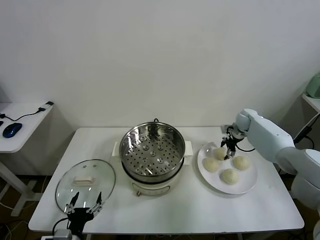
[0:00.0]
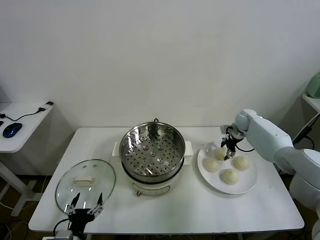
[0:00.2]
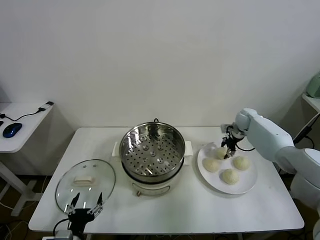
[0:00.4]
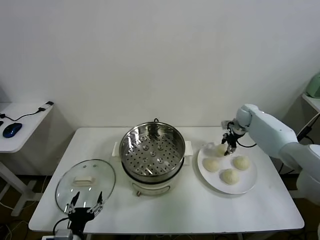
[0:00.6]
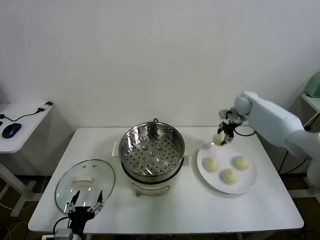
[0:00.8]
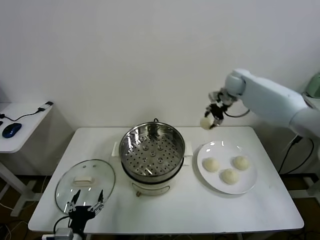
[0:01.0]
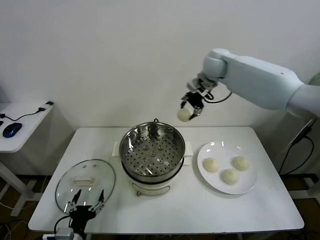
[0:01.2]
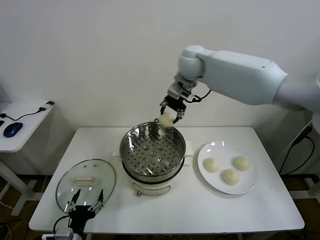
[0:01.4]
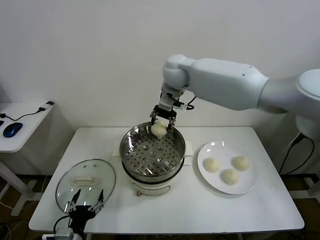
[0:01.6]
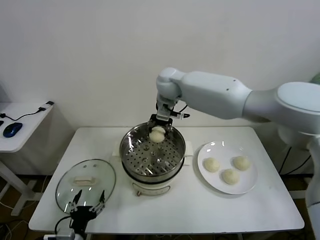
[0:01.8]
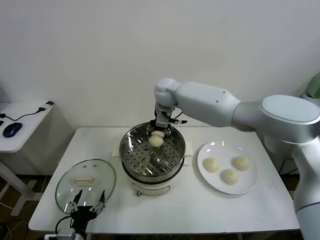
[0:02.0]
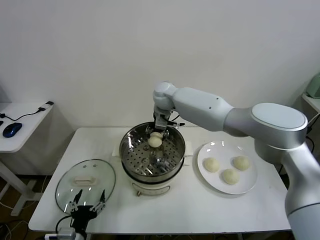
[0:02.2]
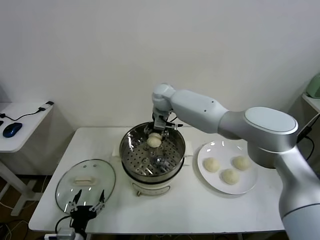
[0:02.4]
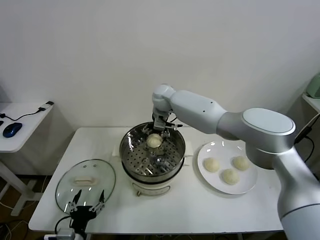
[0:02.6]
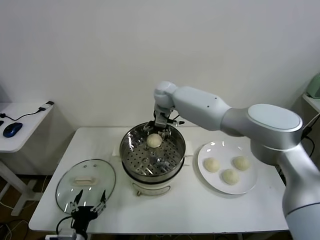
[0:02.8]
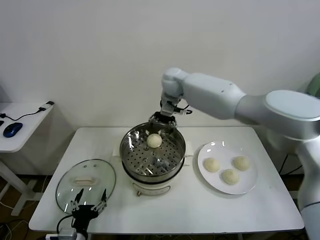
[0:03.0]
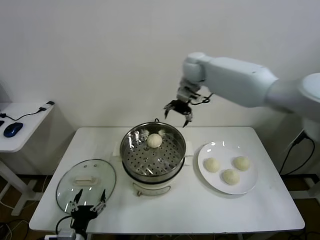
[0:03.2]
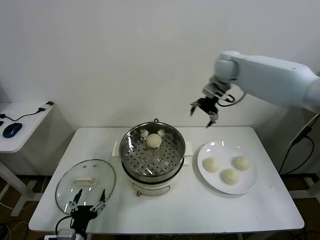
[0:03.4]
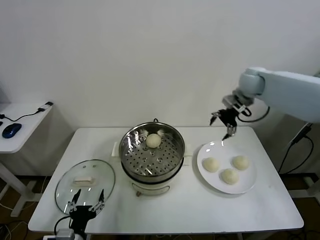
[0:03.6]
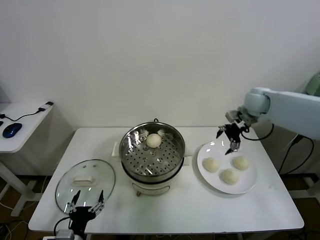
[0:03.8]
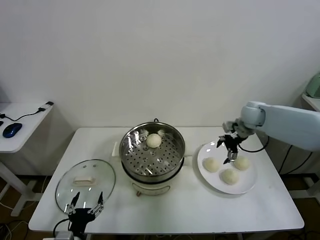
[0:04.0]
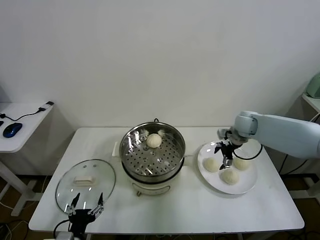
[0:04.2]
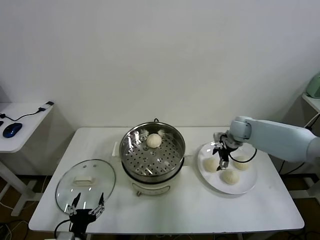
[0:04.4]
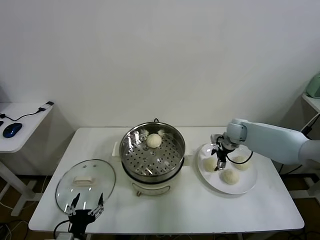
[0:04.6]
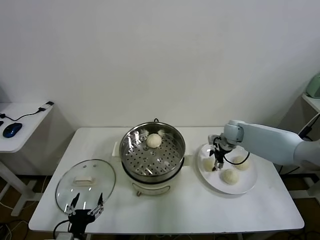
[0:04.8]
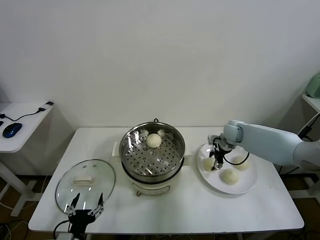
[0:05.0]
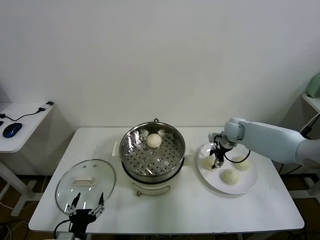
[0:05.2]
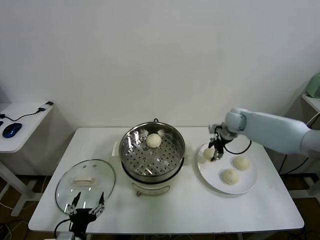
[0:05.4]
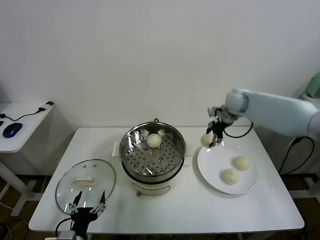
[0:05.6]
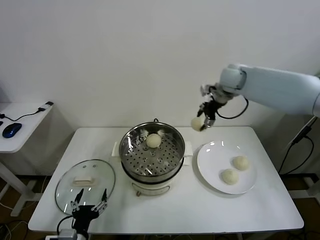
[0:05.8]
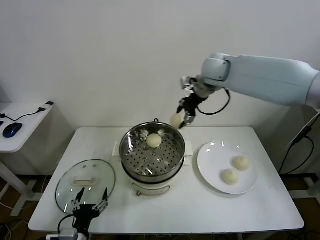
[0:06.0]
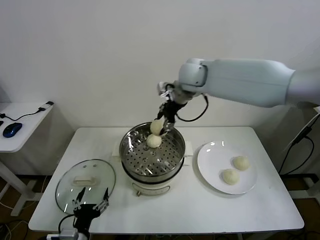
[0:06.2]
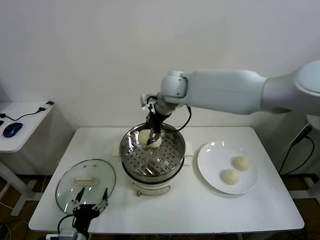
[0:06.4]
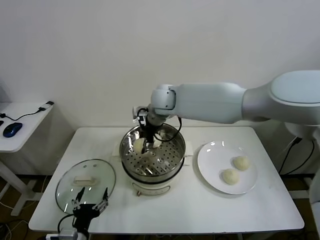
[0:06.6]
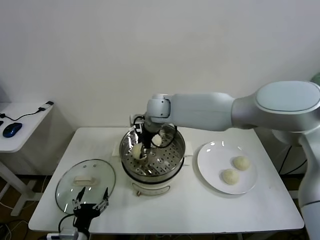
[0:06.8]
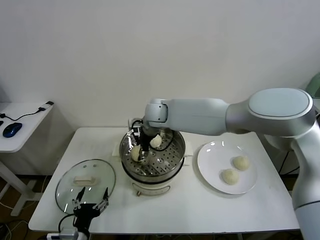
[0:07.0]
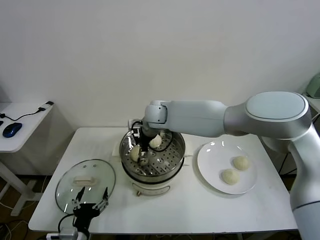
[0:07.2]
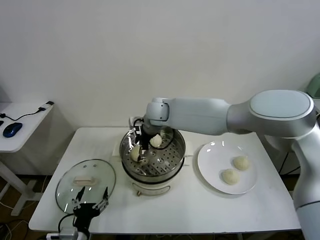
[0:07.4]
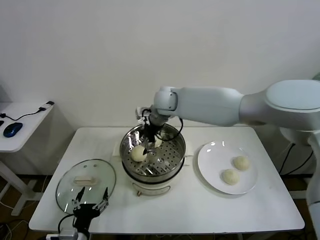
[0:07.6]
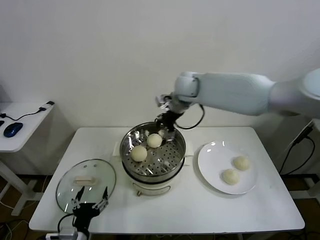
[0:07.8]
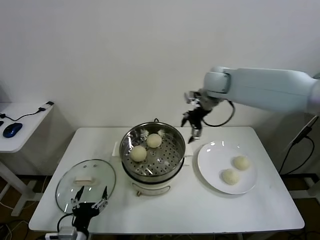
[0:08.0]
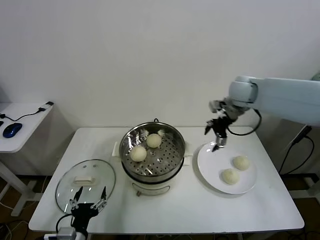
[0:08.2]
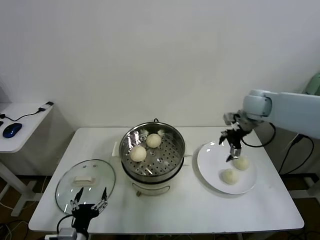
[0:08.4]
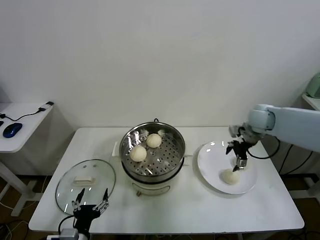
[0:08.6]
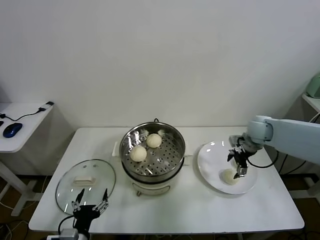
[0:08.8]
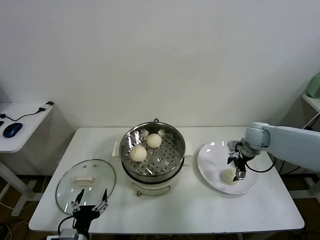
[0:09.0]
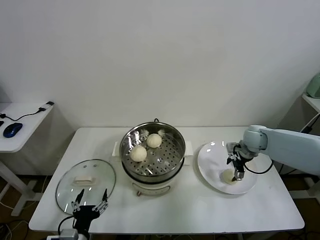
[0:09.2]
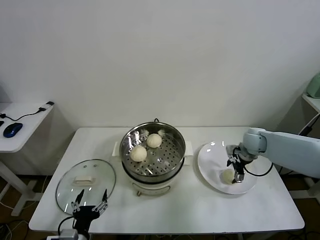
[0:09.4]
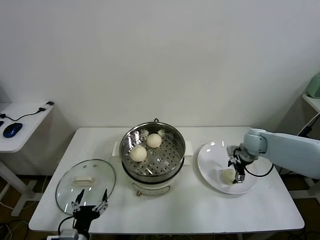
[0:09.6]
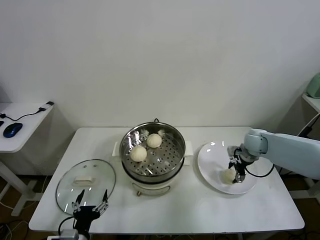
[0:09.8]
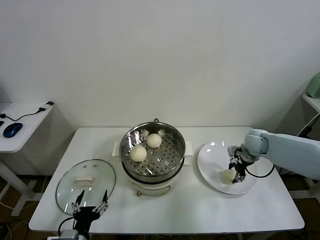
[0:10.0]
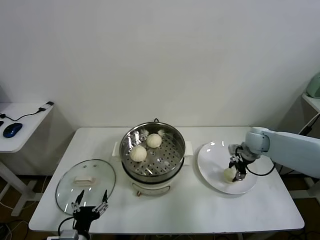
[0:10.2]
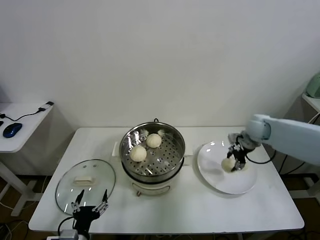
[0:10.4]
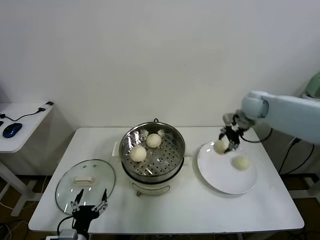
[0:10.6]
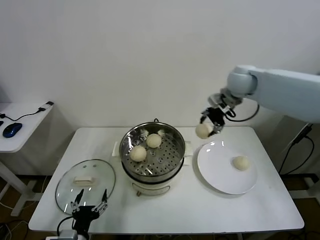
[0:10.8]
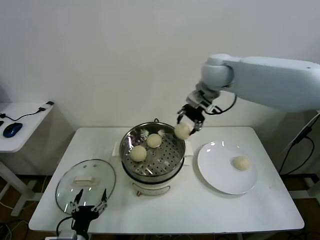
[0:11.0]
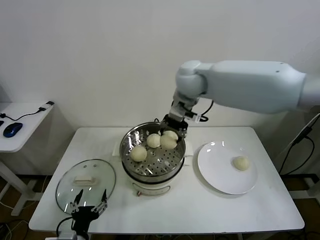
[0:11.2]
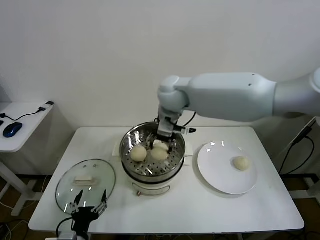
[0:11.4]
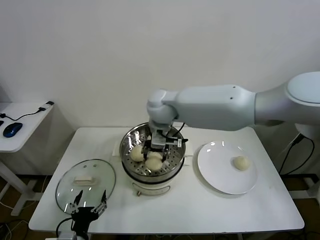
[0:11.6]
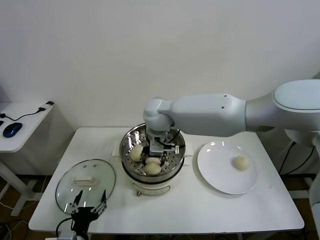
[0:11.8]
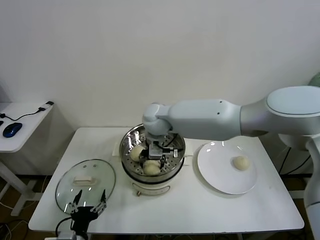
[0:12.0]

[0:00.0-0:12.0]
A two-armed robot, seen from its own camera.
Task of the whole recording: take steamed baozi put them in steamer.
Step, 0.4 to 2.6 s: Place the baozi on the steamer with right gripper.
Step, 3.0 to 5.2 s: Grasp the baozi in the plate with right gripper.
Step, 5.4 to 7.4 s: Place the baozi on the steamer with right gripper.
Step, 7.6 to 10.2 s: Grasp the baozi in the plate with right gripper.
0.0 to 1.6 s: The right gripper is displaced to the left and upward by about 40 cm, and closes its fingers.
1.6 to 3.0 s: The right gripper moves approximately 10 cm downward and comes back, and opens up.
3.0 to 4.4 s: The right gripper moves to the right and downward, about 30 cm.
4.4 to 6.0 s: The right gripper goes approximately 30 cm upward and to the left, and closes its fingers.
6.0 to 7.6 s: The right gripper moves to the left and downward, some 15 cm, and opens up.
7.6 to 9.0 s: The right gripper travels to the right and downward by roughly 35 cm.
9.0 to 10.4 s: The right gripper moves approximately 5 cm, and closes.
10.4 to 12.0 s: The right gripper heads to the left, covering some 35 cm, and opens its fingers.

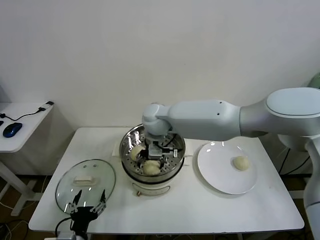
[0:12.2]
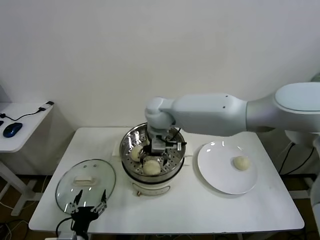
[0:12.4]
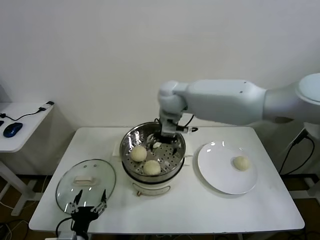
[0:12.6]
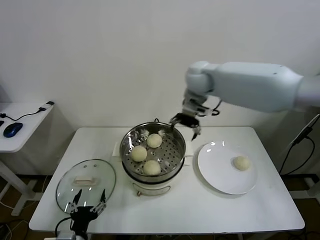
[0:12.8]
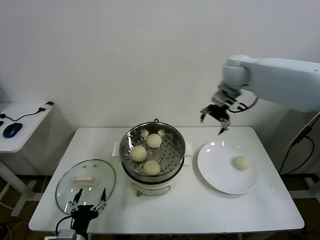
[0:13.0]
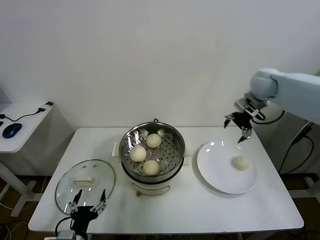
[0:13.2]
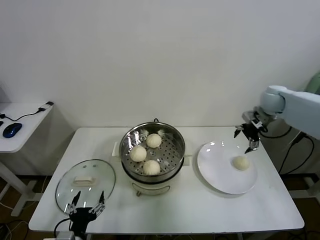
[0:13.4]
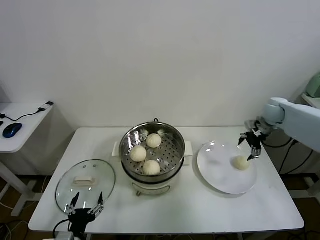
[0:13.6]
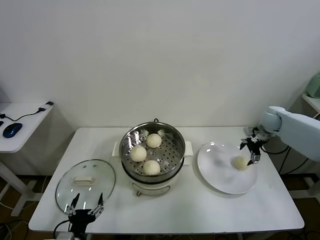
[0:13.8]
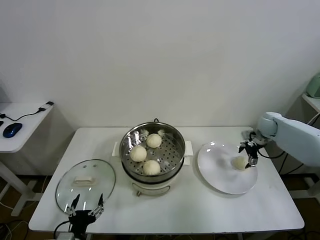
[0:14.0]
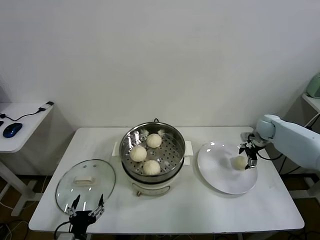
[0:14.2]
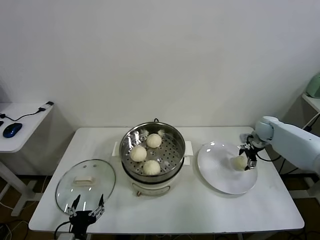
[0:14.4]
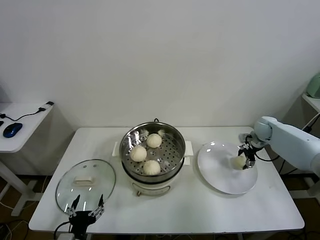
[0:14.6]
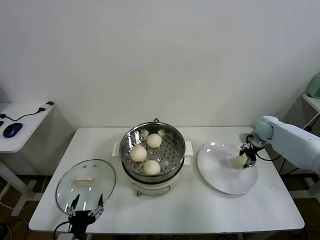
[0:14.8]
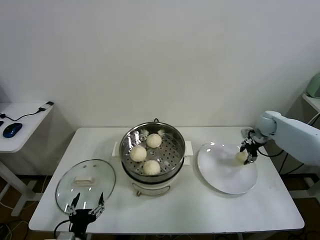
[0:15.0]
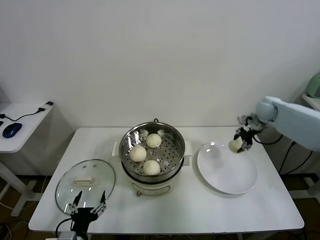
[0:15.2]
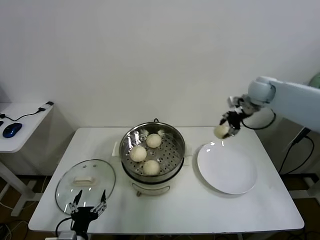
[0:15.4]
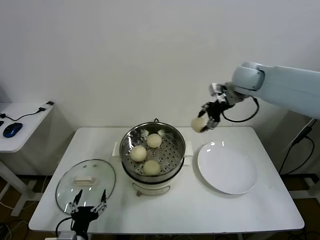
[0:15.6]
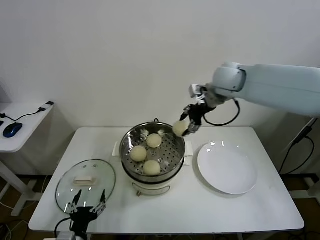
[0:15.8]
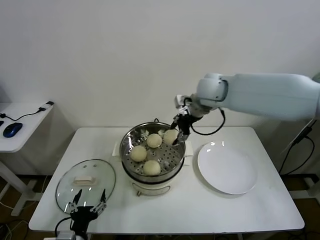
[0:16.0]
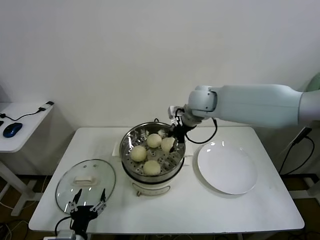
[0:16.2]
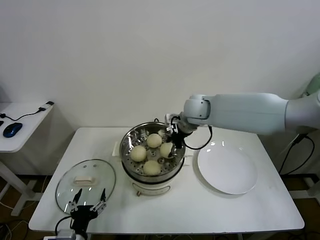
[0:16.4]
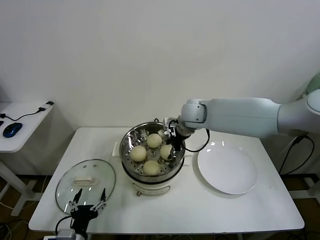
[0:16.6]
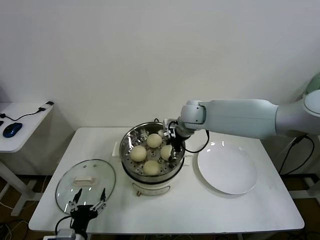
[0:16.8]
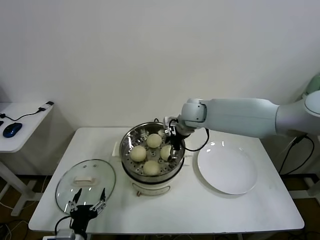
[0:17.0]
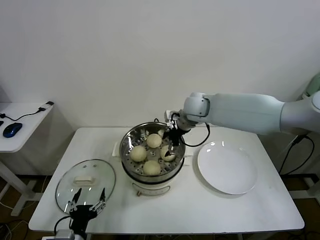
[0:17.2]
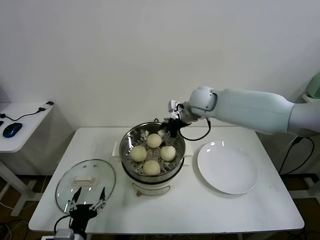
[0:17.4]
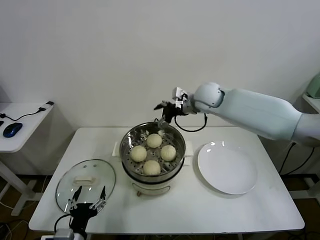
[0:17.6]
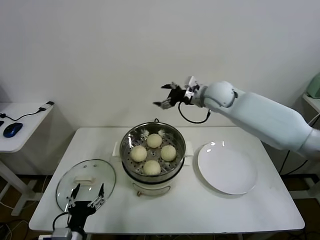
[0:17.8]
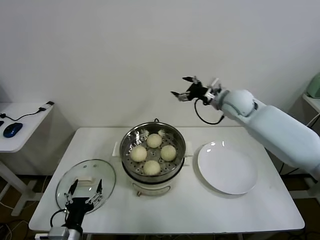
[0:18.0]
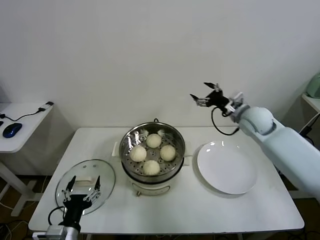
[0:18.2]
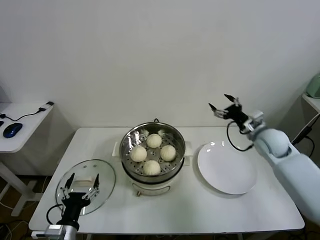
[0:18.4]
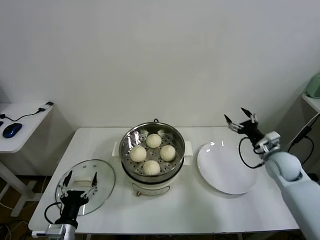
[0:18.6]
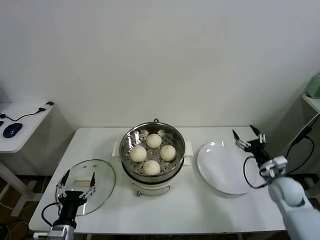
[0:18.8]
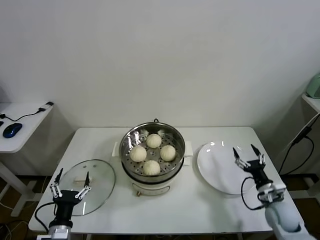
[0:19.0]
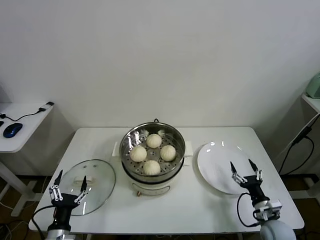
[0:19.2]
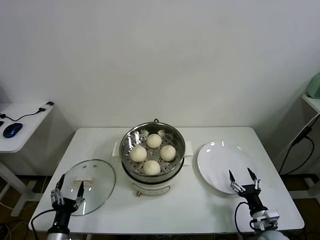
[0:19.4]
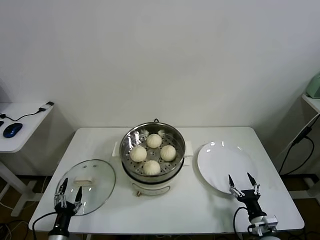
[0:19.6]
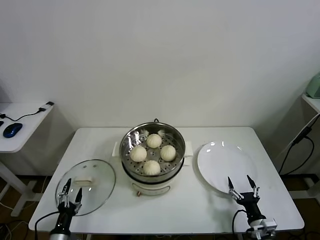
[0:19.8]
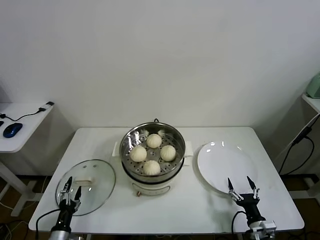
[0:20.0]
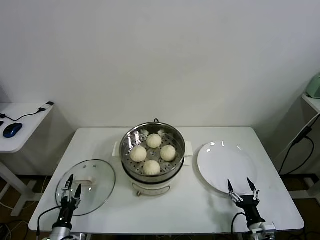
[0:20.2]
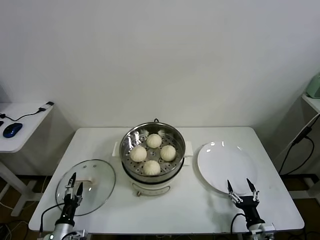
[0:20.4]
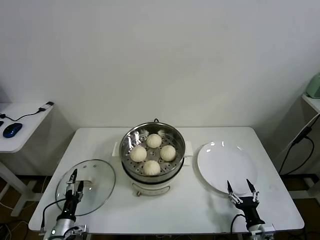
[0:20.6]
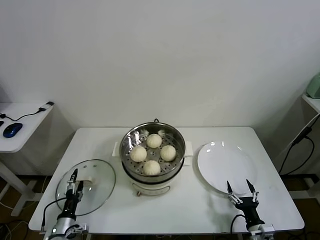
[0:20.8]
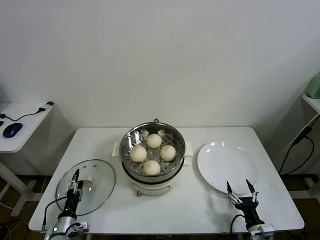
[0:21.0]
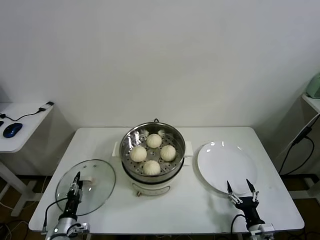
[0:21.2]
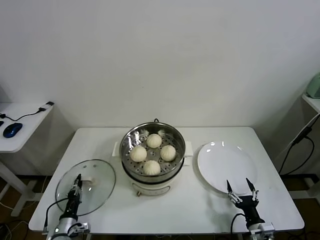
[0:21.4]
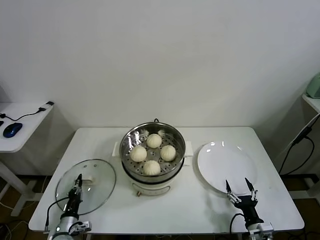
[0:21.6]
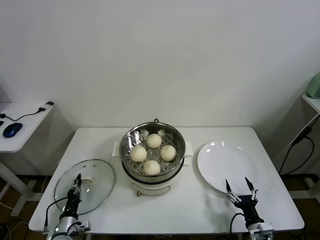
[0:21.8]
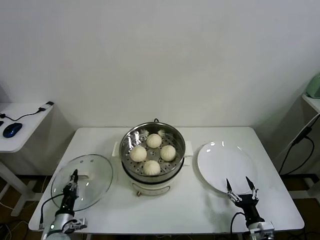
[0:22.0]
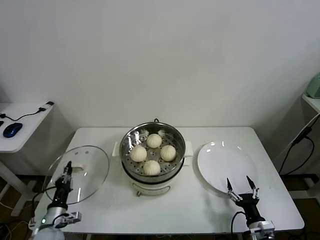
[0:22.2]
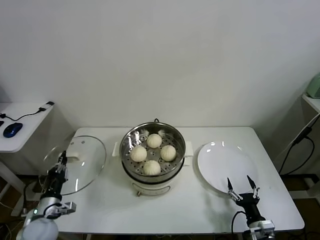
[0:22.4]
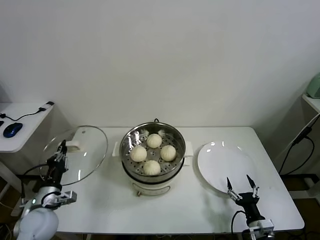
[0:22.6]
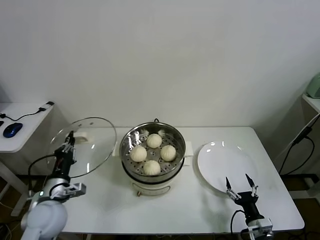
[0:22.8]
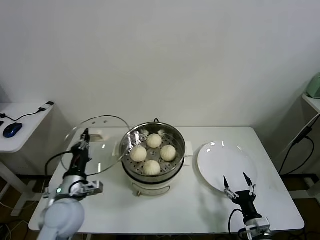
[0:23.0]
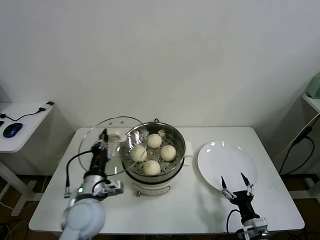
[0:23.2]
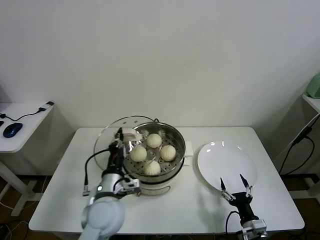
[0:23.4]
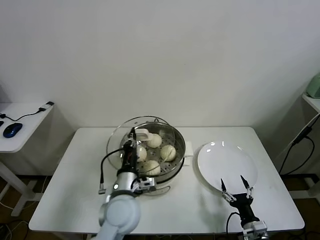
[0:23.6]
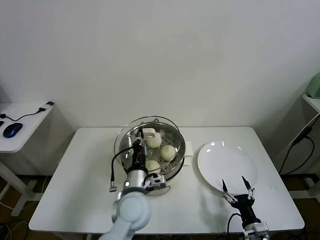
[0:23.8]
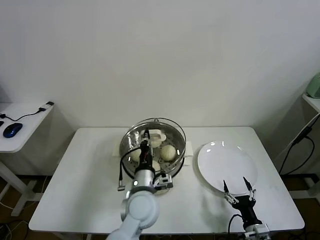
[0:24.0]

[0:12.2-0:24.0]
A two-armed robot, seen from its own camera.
Task of the whole recording: take steamed baozi put them in steamer.
Step, 12.6 to 14.8 s: Grasp the baozi in the plate with right gripper.
Step, 15.0 to 17.0 s: Place the baozi on the steamer with right gripper.
Step, 17.4 to 21.4 s: Grasp the pot lid with left gripper.
12.2 to 13.6 s: The right gripper shifts roughly 40 cm to the right.
13.6 to 15.2 s: The right gripper goes downward and returns, about 10 cm each way, and closes up.
15.2 to 16.6 s: The right gripper shifts some 30 cm to the left.
16.6 to 18.2 s: The right gripper shifts about 20 cm to the right, and opens.
18.2 to 19.6 s: The left gripper shifts some 15 cm downward and to the left, while the right gripper moves downward and backward, about 40 cm.
19.6 to 21.0 s: The left gripper shifts roughly 5 cm forward.
21.0 to 22.6 s: The left gripper travels upward by some 15 cm, and closes its fingers.
22.6 to 24.0 s: The left gripper shifts roughly 30 cm to the right.
